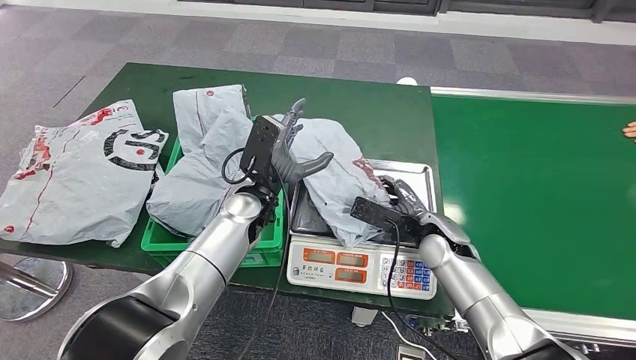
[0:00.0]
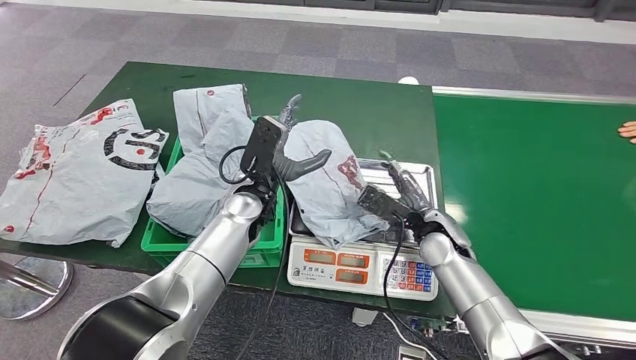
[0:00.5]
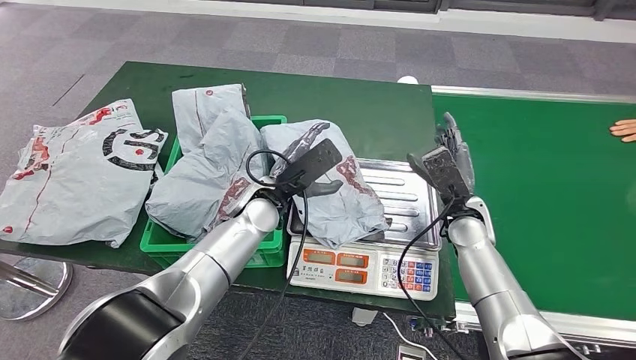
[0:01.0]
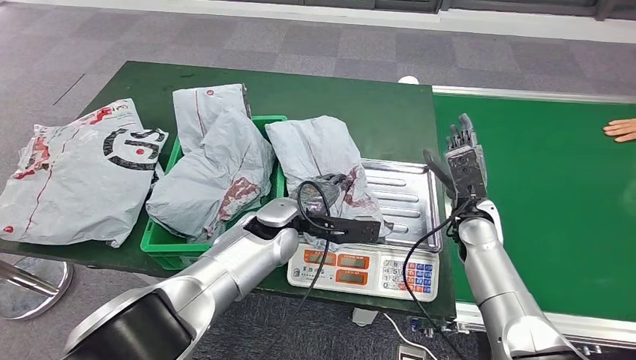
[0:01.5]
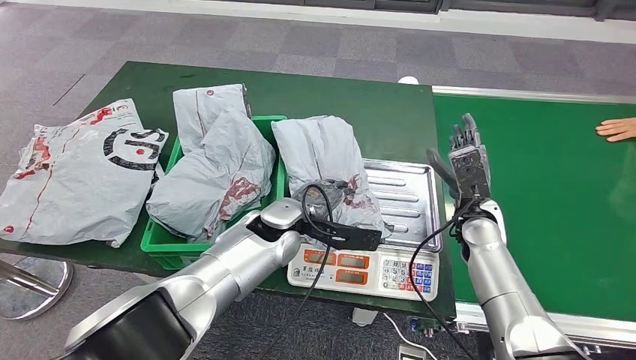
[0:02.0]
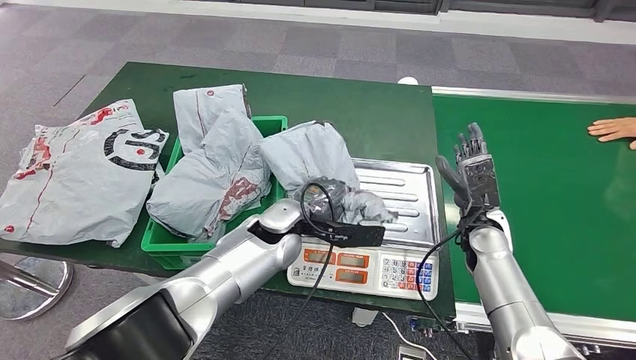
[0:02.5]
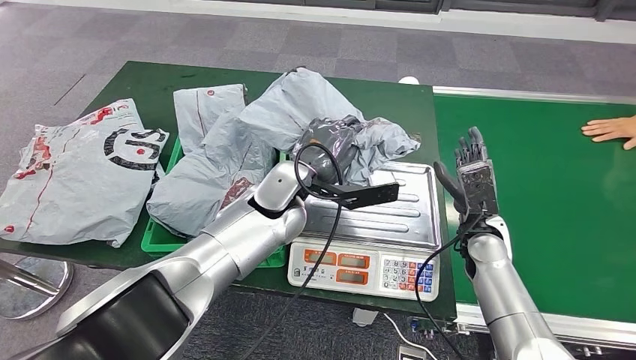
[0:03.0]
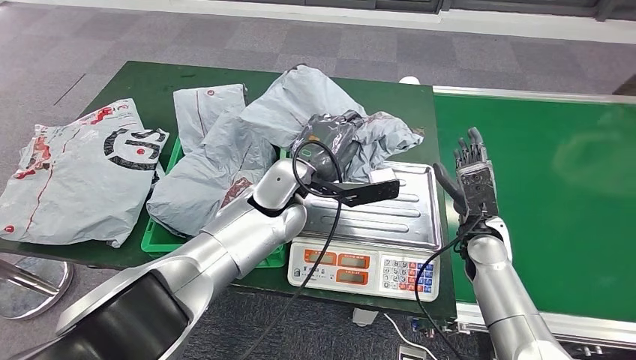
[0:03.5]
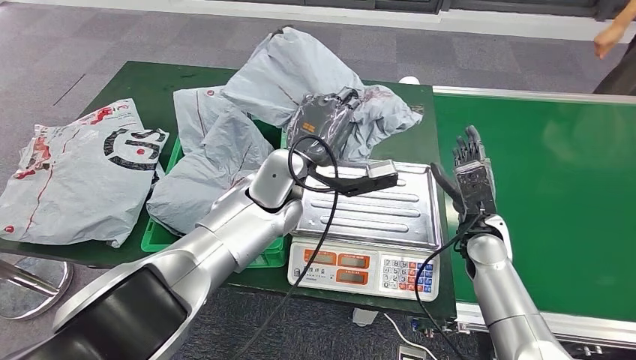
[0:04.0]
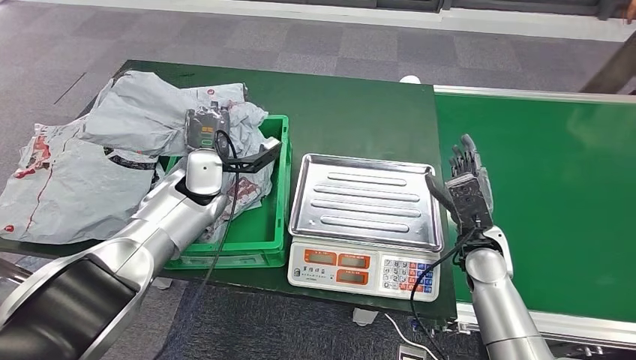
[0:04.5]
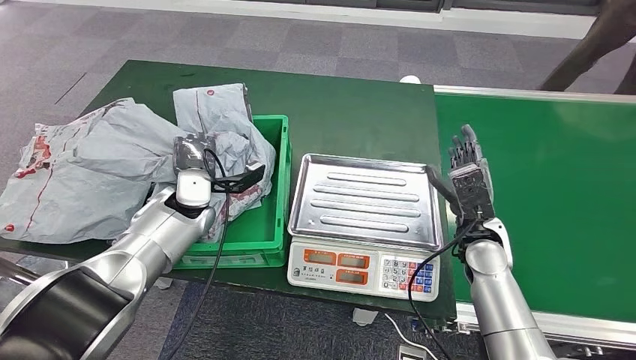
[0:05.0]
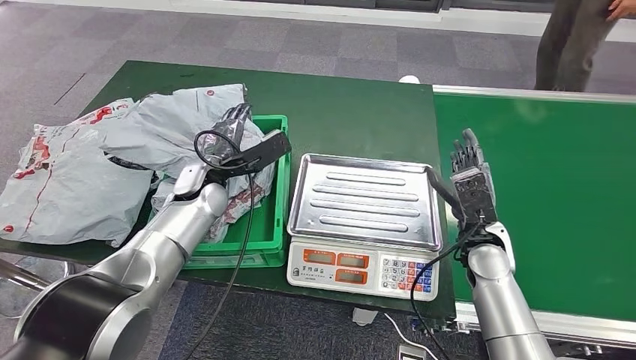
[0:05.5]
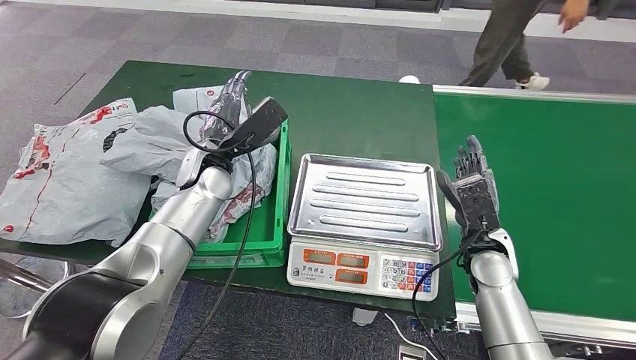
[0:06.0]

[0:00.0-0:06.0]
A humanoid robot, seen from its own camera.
Step, 0:01.5 to 0:04.0: Pick up the parcel from the inbound machine.
Step, 0:04.5 to 0:06.0: Place the parcel into the delivery box.
